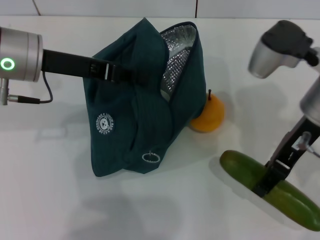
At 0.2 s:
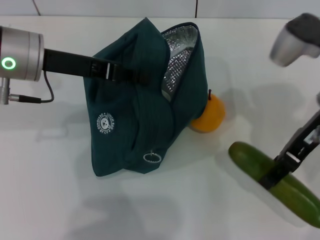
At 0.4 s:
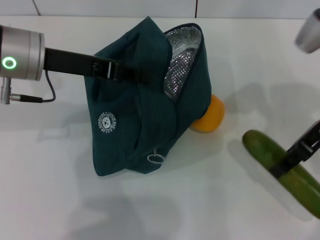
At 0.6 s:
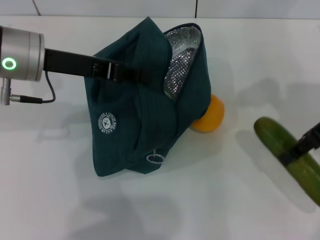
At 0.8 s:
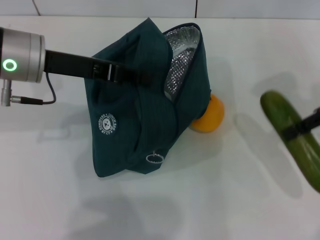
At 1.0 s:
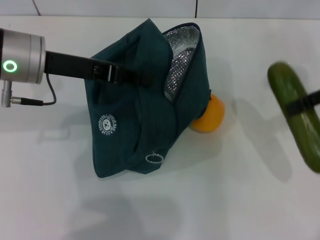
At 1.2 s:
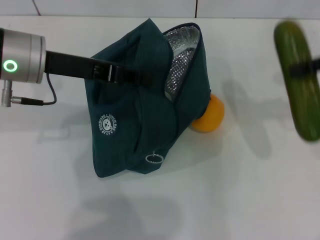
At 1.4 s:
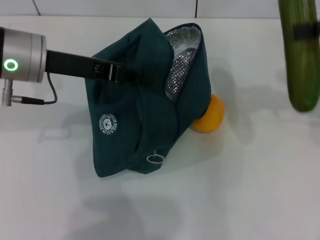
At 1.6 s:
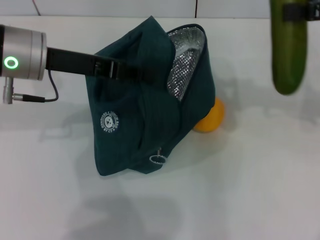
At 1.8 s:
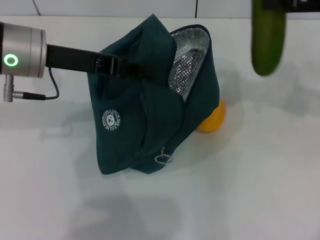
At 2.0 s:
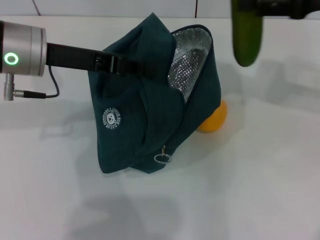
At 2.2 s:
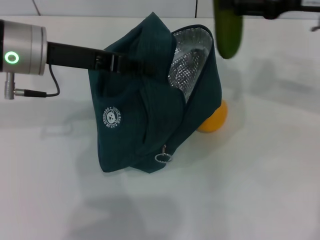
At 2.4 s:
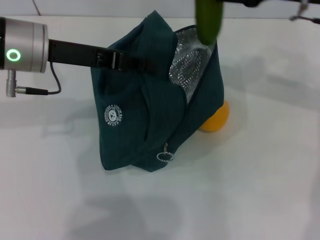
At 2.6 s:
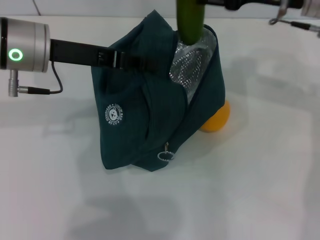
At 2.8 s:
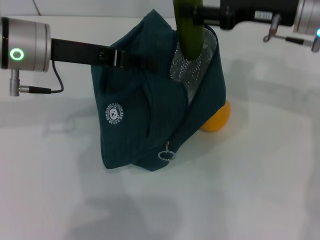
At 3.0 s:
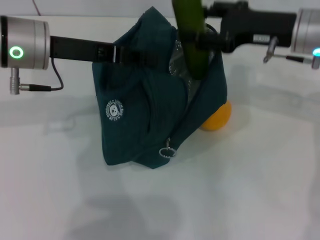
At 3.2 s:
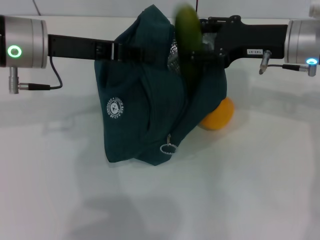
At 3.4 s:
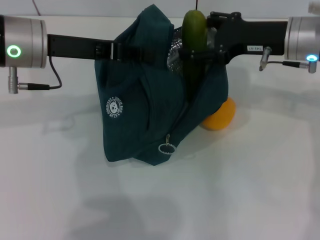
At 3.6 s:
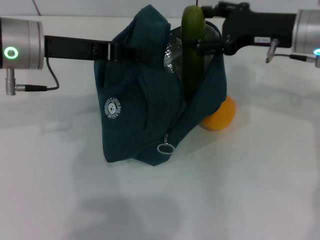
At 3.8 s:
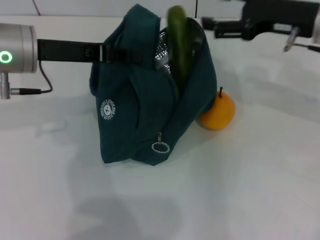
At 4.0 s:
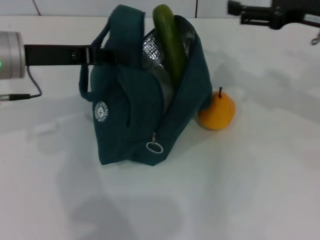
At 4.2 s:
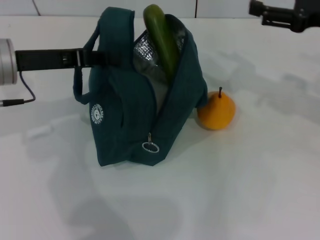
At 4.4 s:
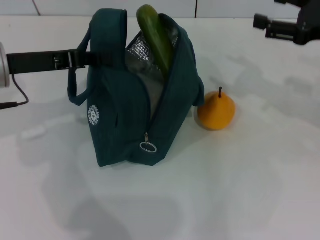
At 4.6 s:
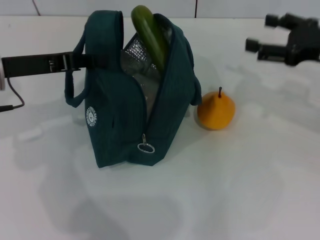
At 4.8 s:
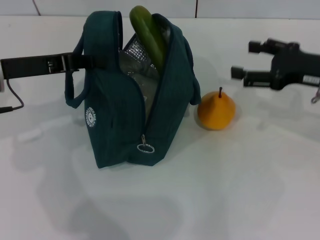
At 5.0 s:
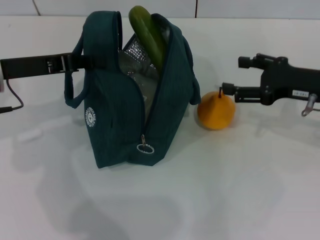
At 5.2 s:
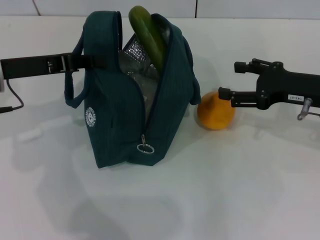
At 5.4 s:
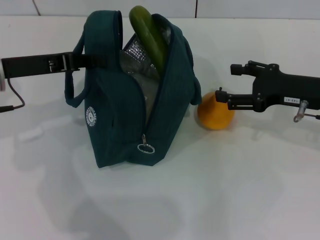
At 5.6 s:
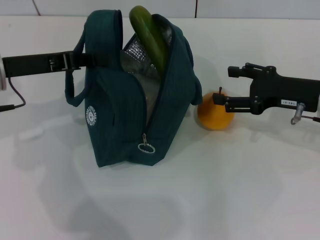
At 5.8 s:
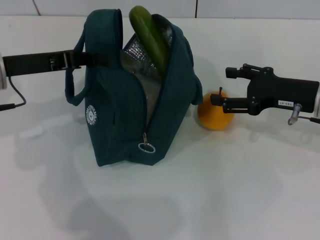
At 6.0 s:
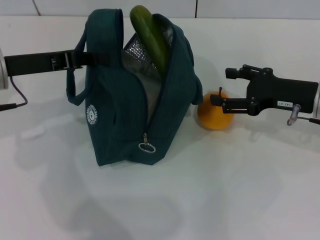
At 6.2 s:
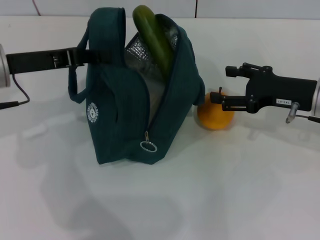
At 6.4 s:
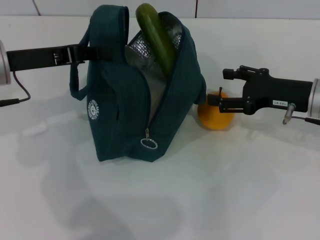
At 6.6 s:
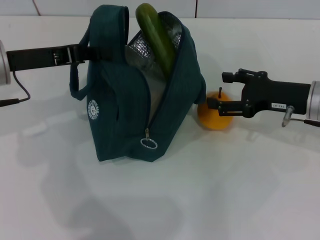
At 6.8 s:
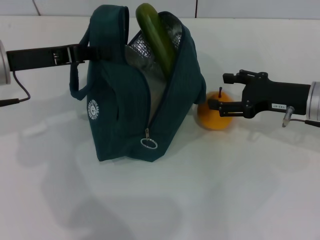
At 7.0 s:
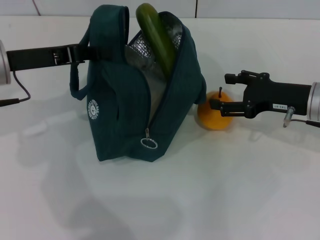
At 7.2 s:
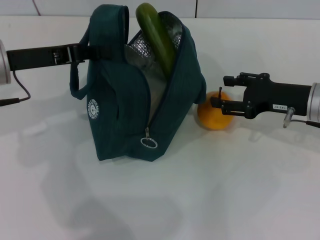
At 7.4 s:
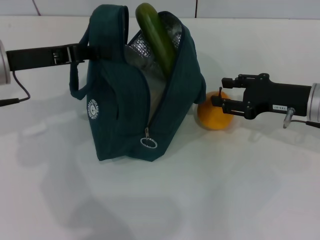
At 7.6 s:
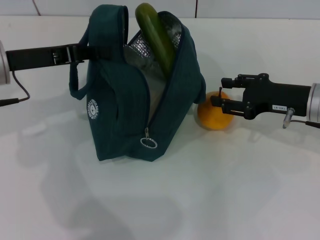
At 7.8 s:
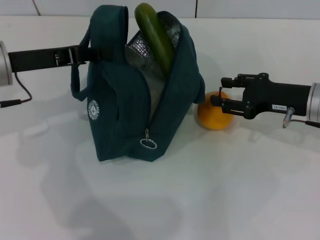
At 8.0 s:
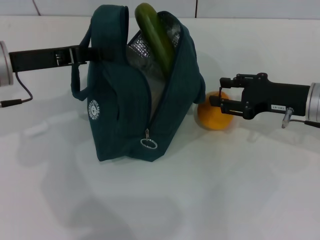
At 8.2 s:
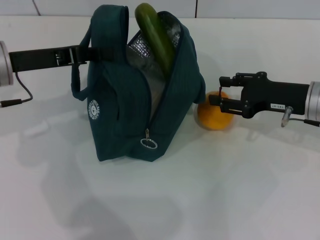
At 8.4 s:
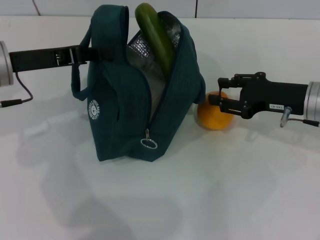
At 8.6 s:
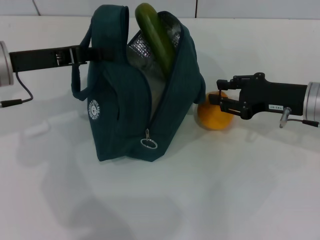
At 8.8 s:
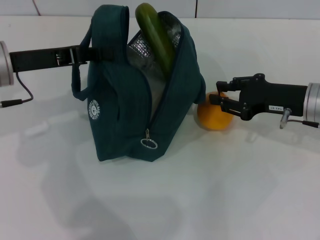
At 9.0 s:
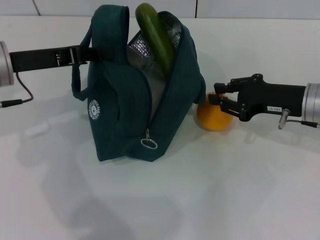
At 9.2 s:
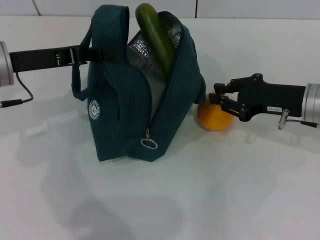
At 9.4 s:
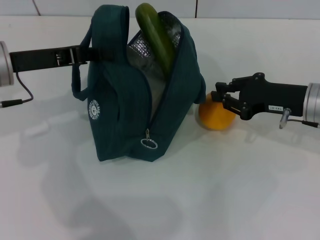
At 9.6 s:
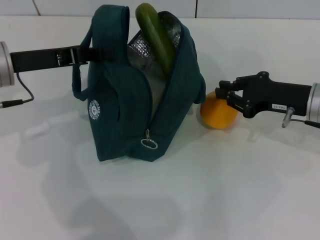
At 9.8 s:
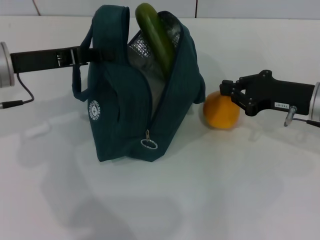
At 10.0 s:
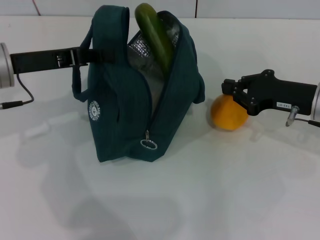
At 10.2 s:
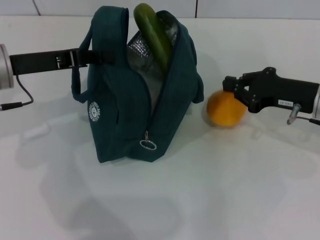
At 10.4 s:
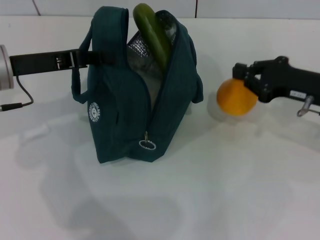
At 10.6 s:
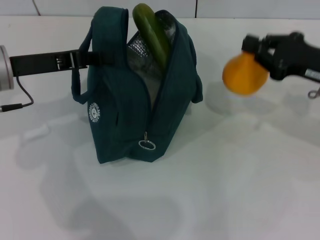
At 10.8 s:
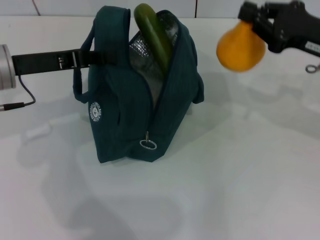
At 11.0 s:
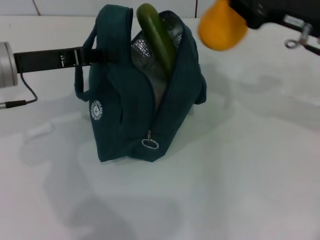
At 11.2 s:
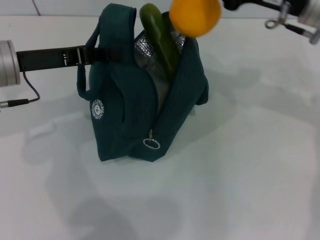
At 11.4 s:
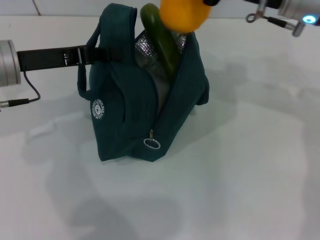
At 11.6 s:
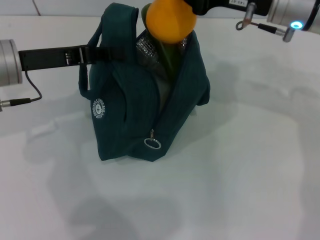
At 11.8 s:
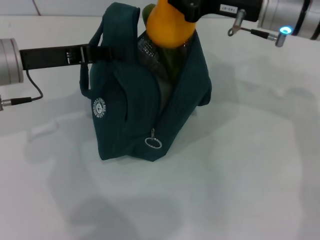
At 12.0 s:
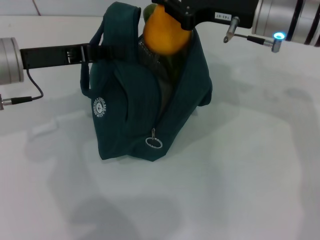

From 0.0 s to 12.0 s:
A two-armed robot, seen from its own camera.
Step, from 0.0 s to 3.6 s: Put the cucumber into the lunch bag with your right hand.
Step, from 3.8 s to 10.0 s: Grab the pear with your right hand.
From 0.0 s to 1.6 s: The right gripper goes about 15 cm to the right and upward.
From 1.6 s to 3.0 s: The right gripper is displaced downward, to the left and forward by approximately 15 cm.
From 3.0 s to 4.4 s: The left gripper moves to the left, approximately 5 cm; the right gripper heads to the right, covering some 10 cm.
From 4.4 s to 6.0 s: The right gripper moves downward, roughly 10 cm.
From 6.0 s to 7.6 s: Both grippers stay put.
From 7.6 s to 9.0 s: Neither gripper changes place.
From 9.0 s to 10.4 s: The right gripper closes.
From 10.4 s to 12.0 s: The right gripper moves to the left, upward and forward, some 15 cm.

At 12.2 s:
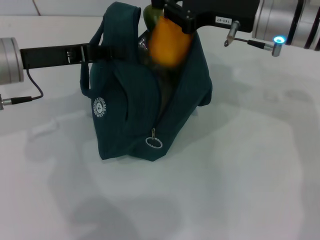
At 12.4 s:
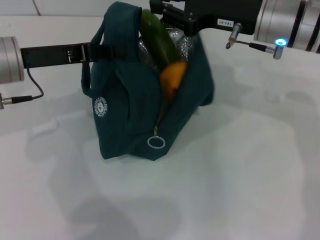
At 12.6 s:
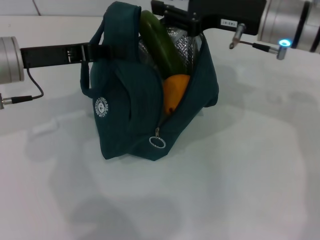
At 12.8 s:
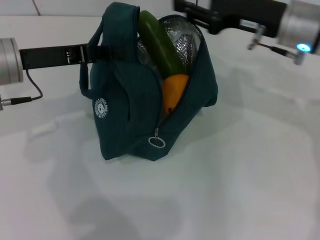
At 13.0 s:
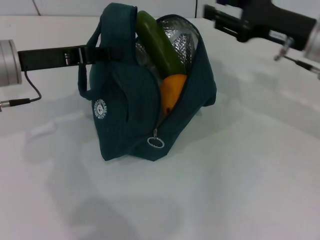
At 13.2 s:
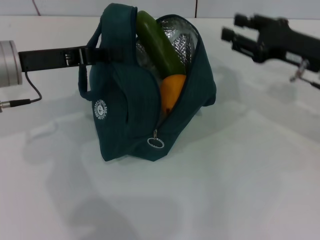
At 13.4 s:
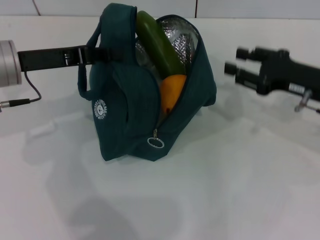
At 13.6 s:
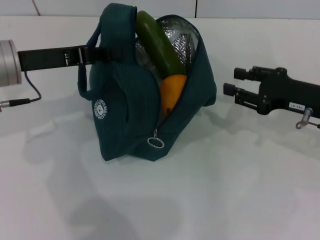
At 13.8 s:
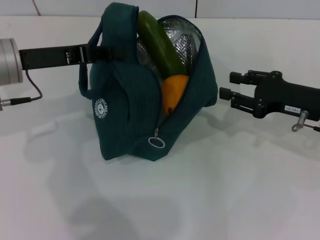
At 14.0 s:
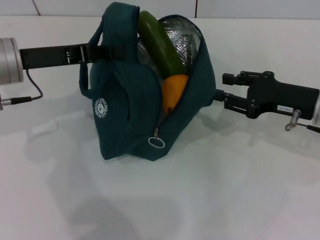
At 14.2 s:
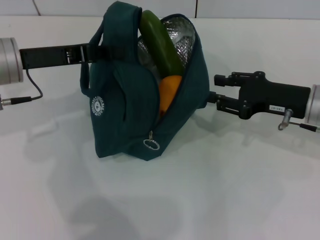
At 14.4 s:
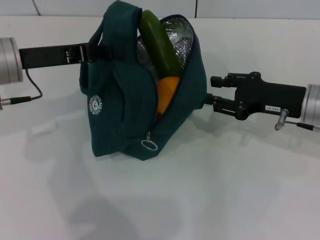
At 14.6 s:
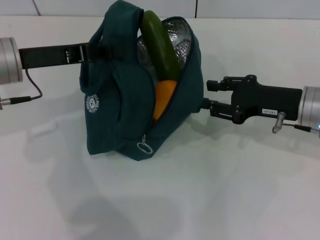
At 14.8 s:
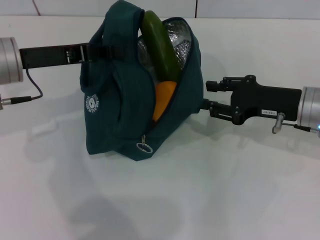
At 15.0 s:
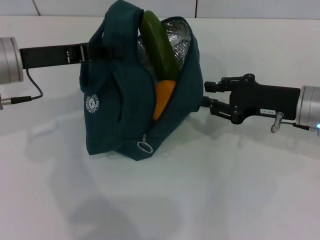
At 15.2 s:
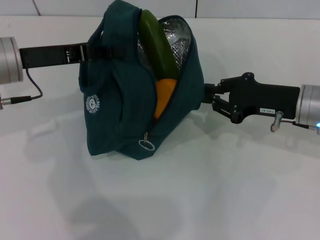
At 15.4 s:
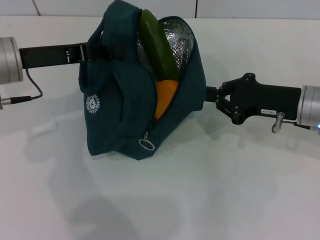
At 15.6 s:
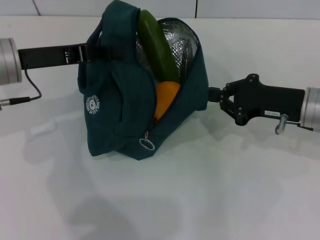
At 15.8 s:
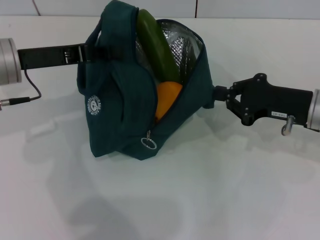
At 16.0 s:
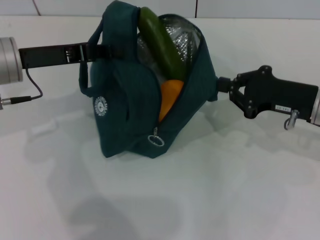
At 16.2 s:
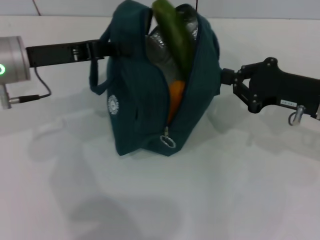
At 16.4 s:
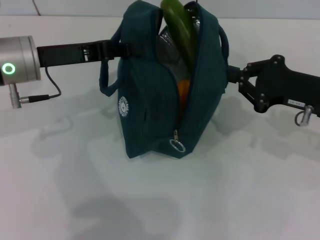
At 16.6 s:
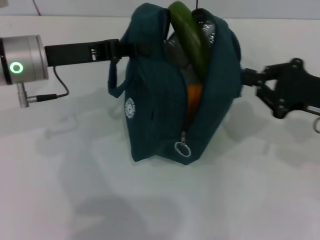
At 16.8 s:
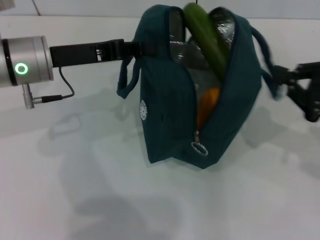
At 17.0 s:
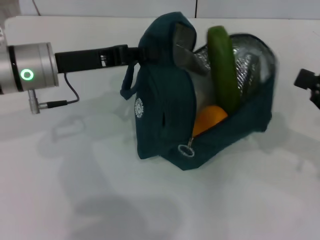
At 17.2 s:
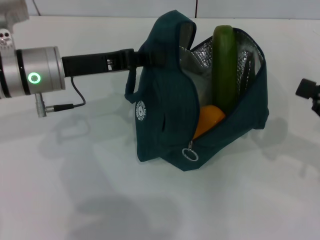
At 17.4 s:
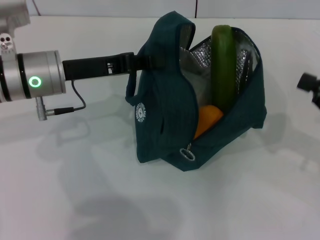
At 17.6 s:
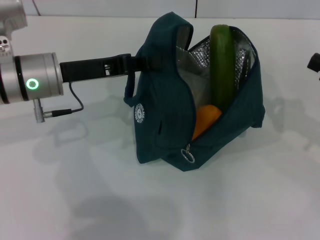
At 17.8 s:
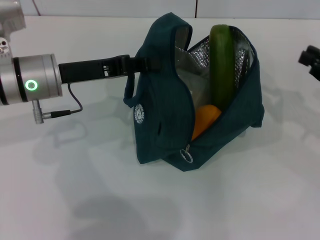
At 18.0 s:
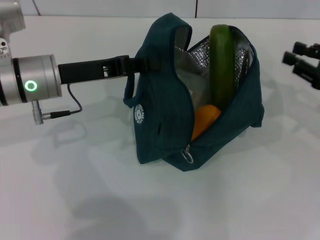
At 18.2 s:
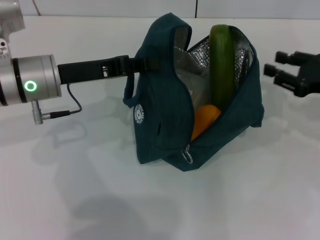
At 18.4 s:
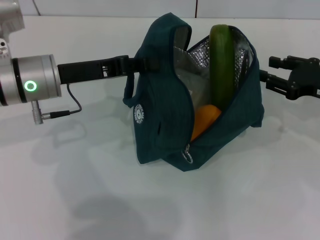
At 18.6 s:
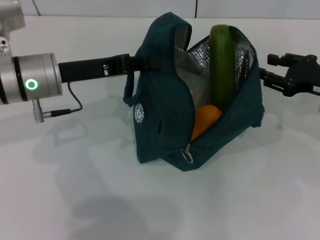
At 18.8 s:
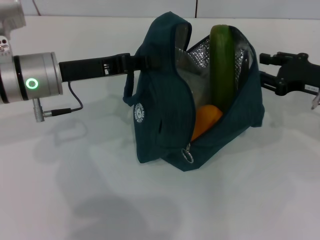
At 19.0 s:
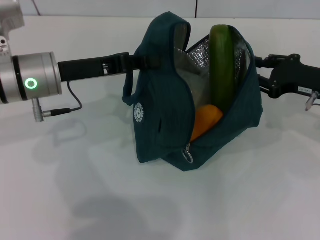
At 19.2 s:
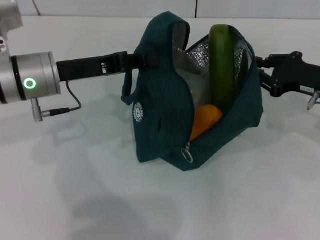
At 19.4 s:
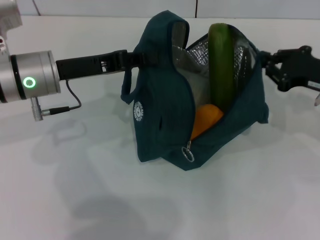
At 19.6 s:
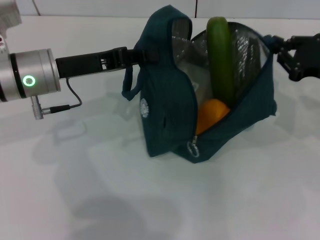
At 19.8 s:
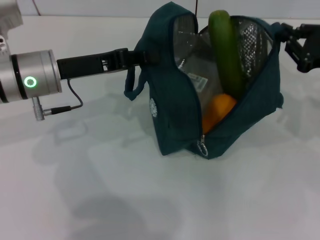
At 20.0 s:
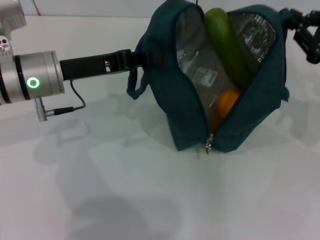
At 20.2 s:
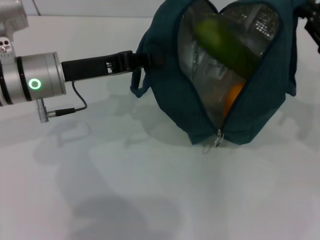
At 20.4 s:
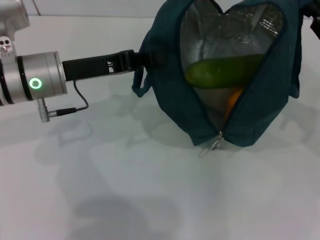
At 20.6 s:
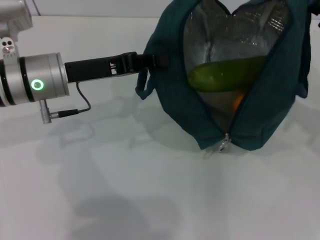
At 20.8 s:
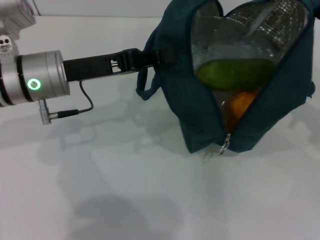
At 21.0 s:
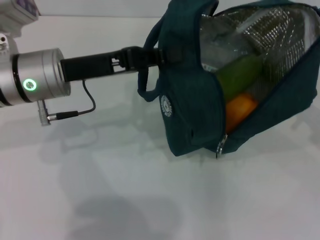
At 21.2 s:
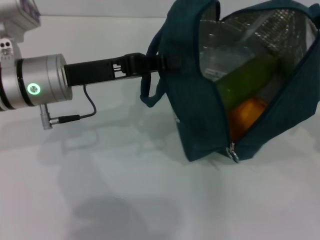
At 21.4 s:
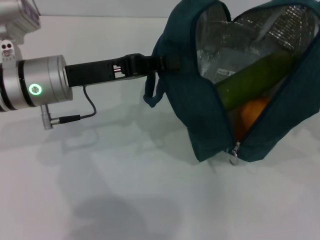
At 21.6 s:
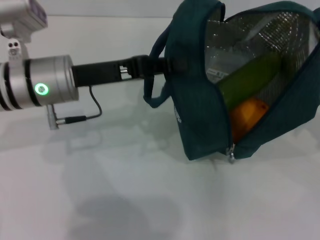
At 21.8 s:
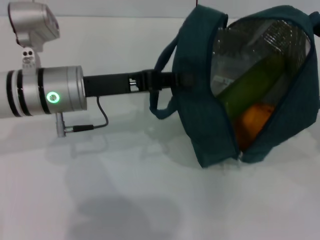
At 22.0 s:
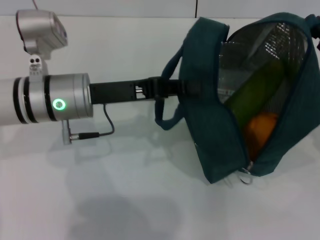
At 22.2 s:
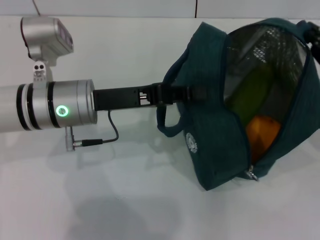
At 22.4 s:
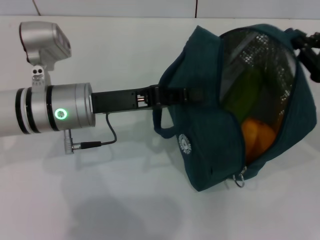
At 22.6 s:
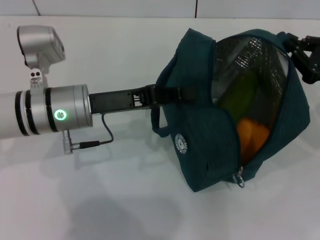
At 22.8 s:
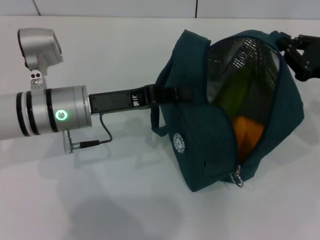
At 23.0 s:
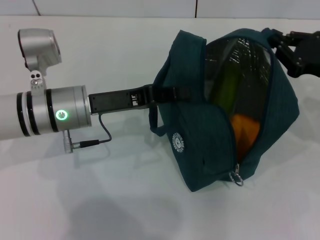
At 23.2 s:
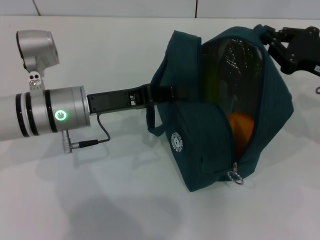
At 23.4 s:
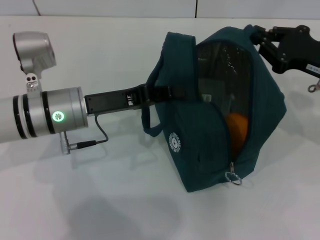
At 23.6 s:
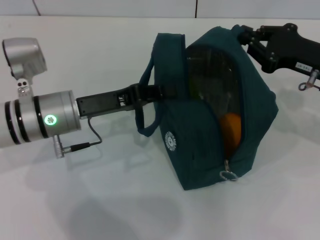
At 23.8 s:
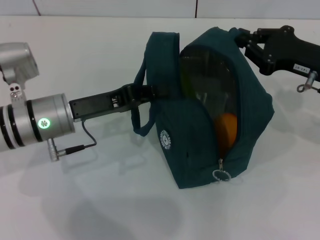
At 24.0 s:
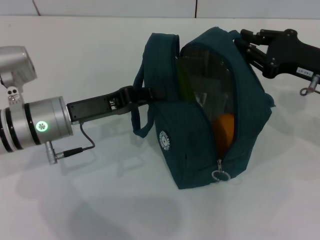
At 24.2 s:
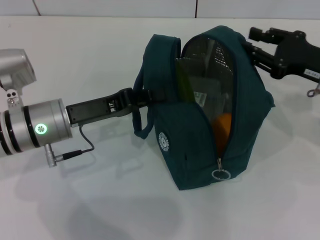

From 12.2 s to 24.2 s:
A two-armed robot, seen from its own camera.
From 12.2 s to 13.8 s: The right gripper moves to the right, downward and backward, some 15 cm, and opens.
From 13.8 s to 15.2 s: The grippers stay close to where they were, moving slightly.
From 15.2 s to 16.6 s: The right gripper is displaced to the right by about 5 cm.
From 16.6 s to 18.2 s: The right gripper ends up approximately 5 cm from where it was, and opens up.
From 18.2 s to 19.8 s: The grippers stay close to where they were, moving slightly.
